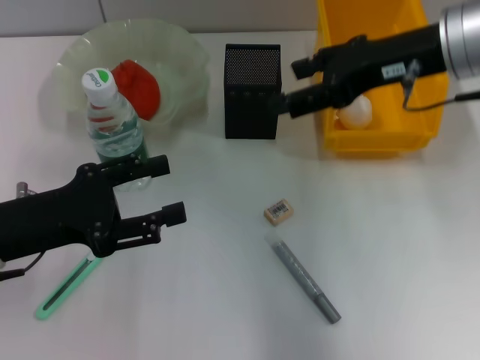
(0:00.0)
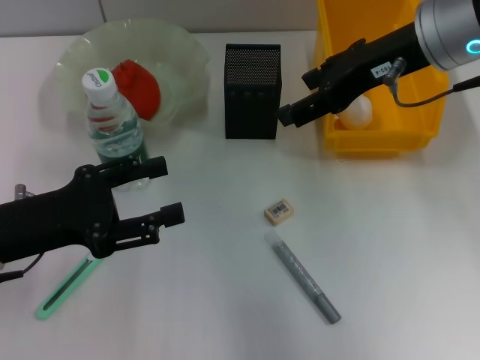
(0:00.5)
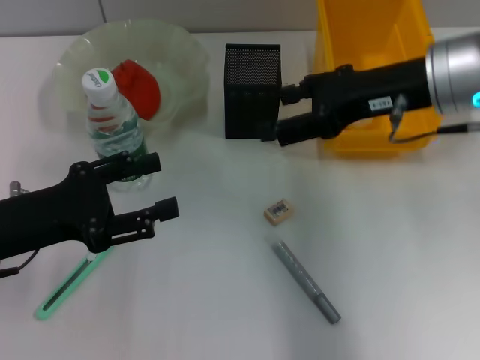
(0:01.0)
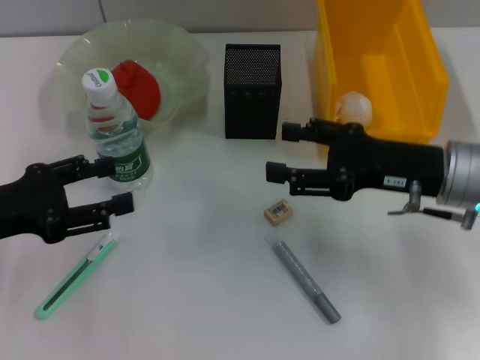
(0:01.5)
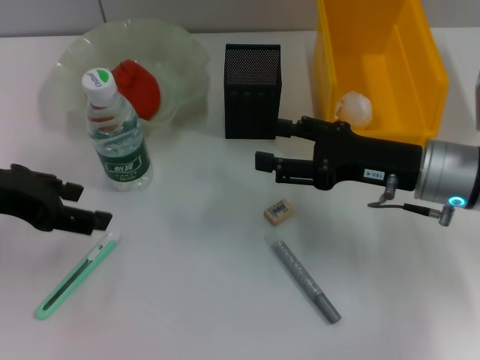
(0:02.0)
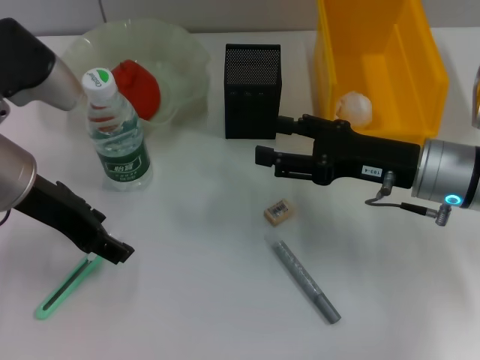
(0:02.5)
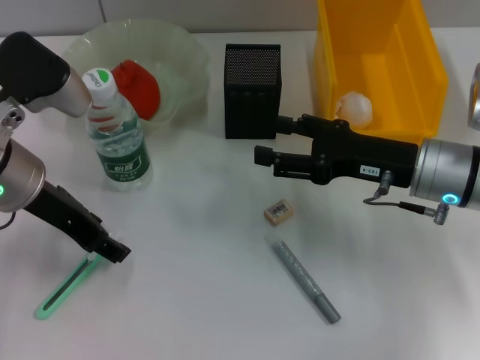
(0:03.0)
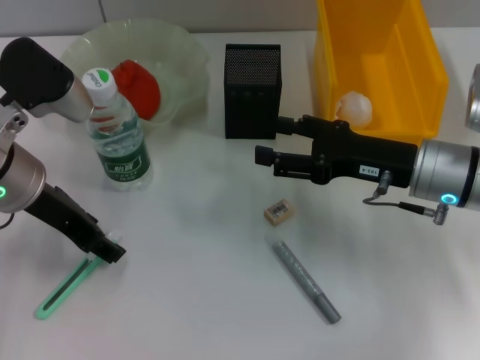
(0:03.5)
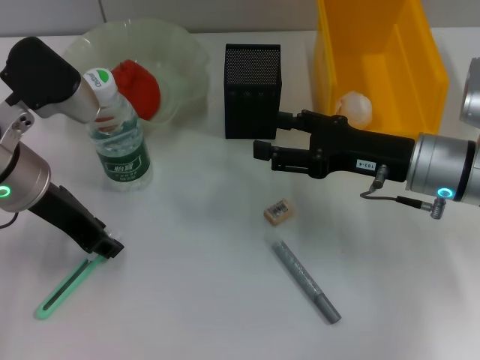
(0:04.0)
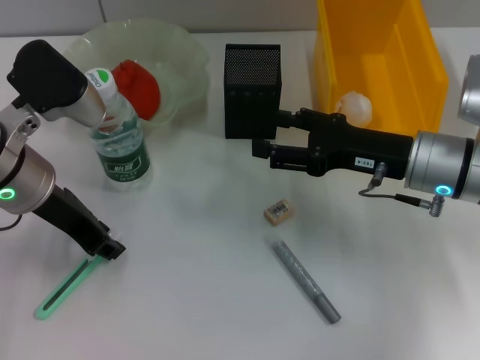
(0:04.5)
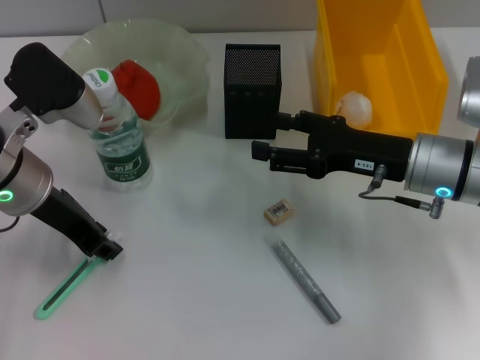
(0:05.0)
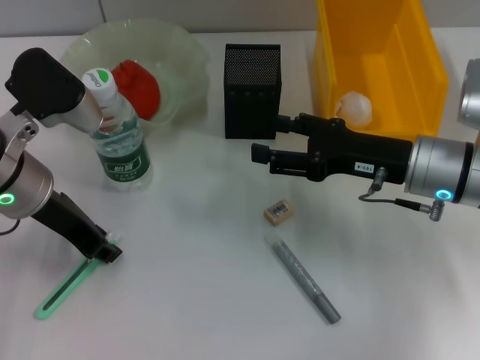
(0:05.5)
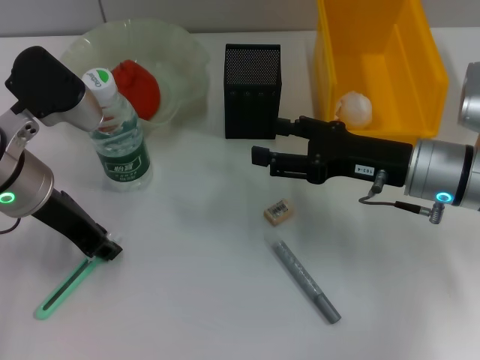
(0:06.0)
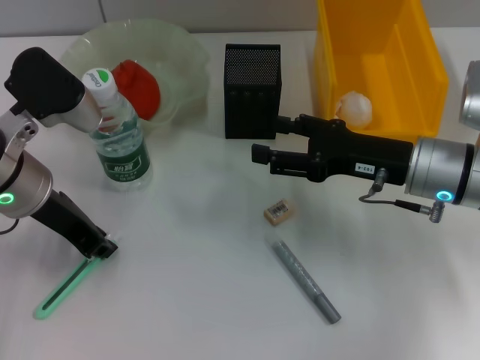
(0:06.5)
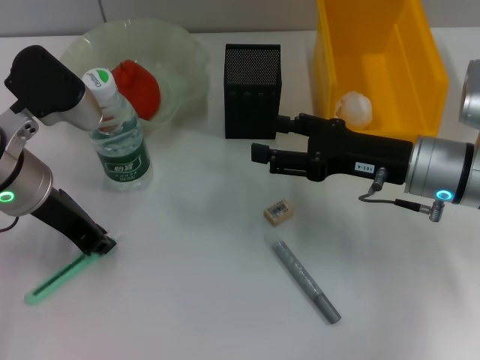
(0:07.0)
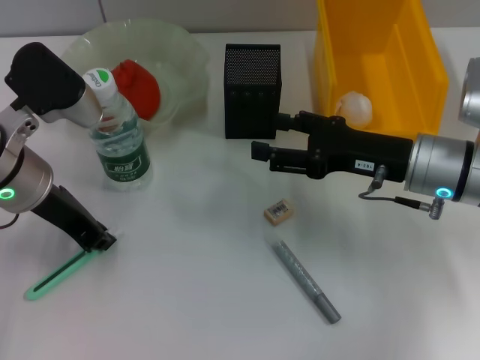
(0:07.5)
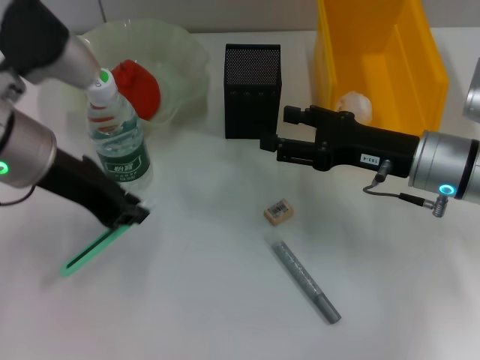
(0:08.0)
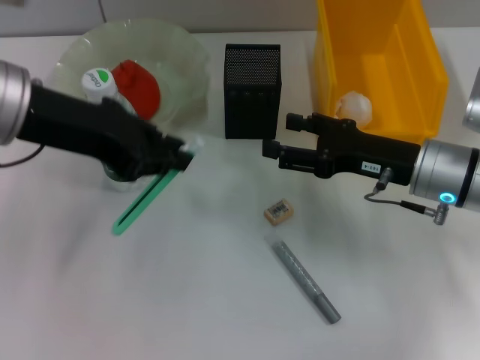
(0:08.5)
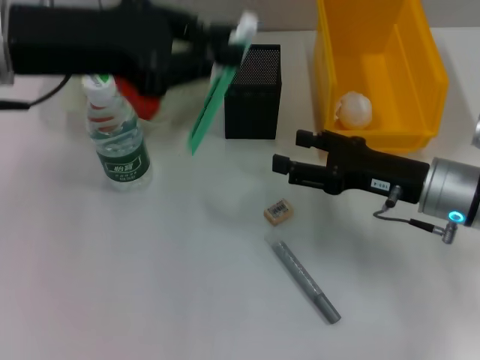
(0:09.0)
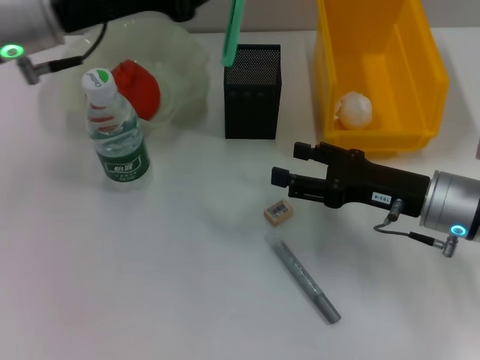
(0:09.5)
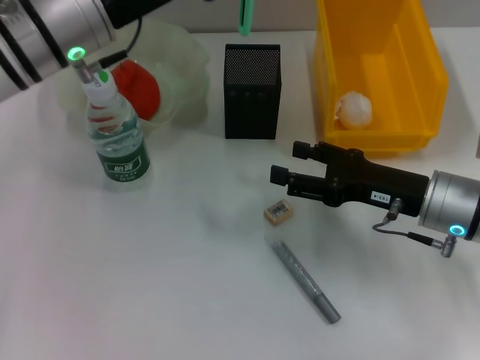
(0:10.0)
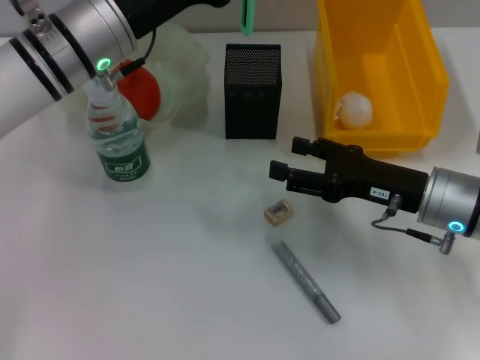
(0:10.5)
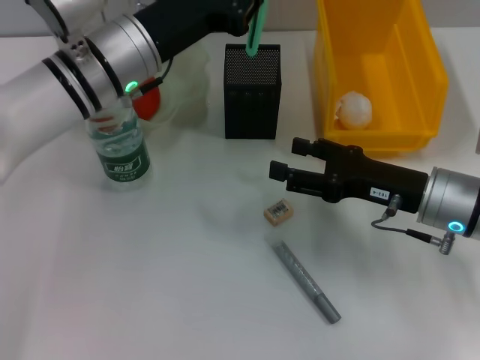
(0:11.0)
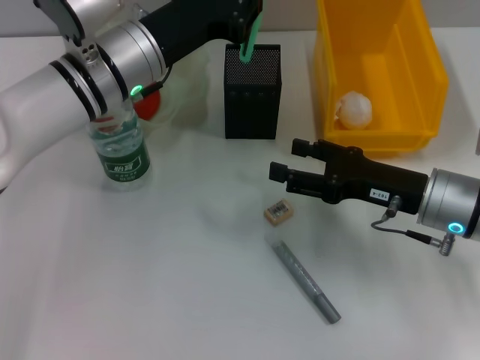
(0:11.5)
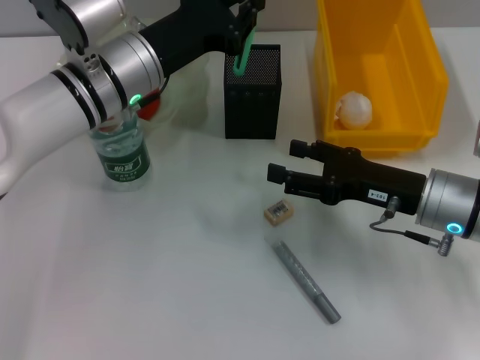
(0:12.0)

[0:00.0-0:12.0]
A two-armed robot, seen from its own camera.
Step, 0:00.0 to 0:07.0: Grab the blue utility knife with the left hand.
0:00.0 to 0:02.0: The left gripper goes roughly 10 cm upward. The right gripper shifts roughly 15 cm downward.
0:02.0 to 0:04.0: The left gripper goes some 5 cm to the right.
0:04.0 to 0:06.0: The left gripper closes up.
0:06.0 to 0:08.0: The grippers move only a little.
0:08.0 to 0:10.0: The left gripper is displaced forward by roughly 5 cm.
0:10.0 to 0:12.0: The left gripper goes about 5 cm downward.

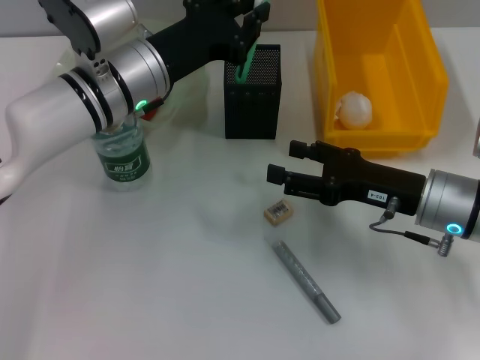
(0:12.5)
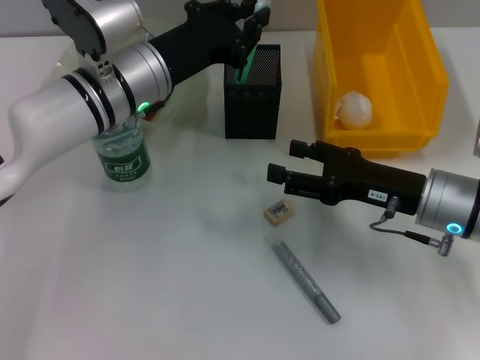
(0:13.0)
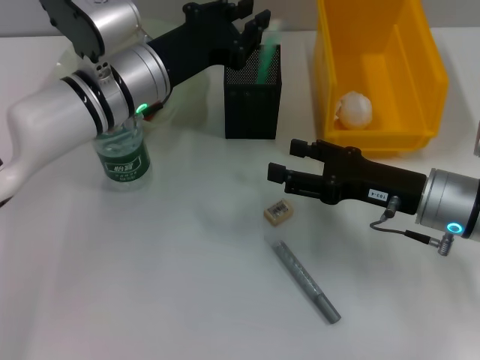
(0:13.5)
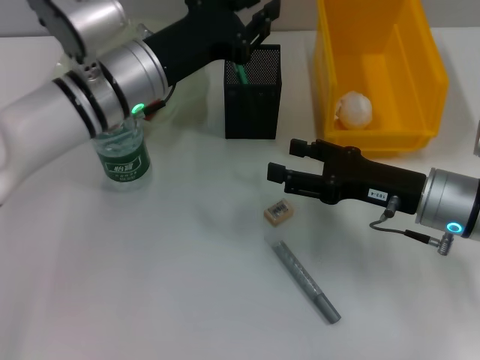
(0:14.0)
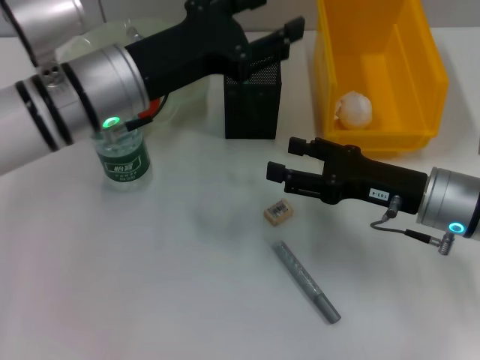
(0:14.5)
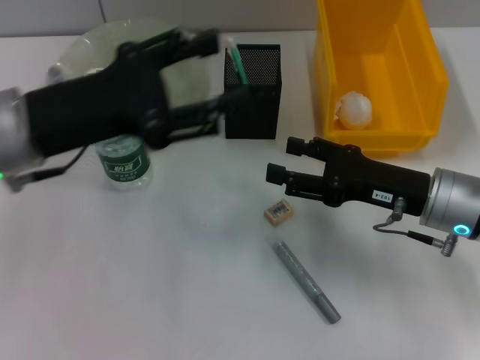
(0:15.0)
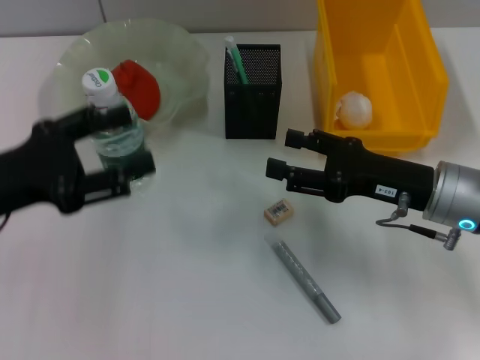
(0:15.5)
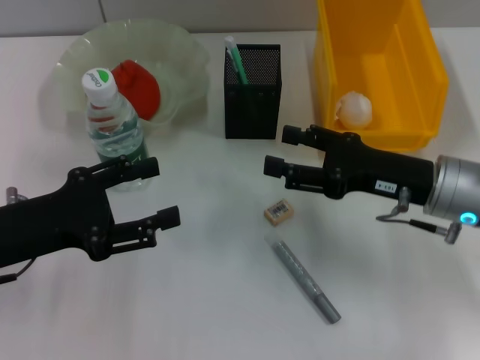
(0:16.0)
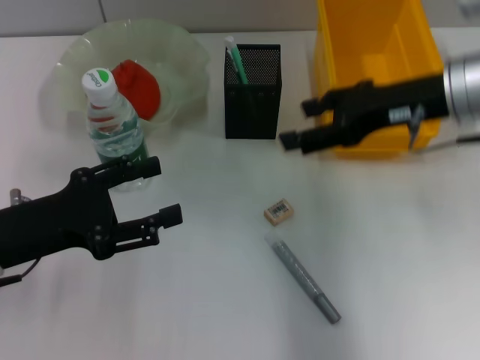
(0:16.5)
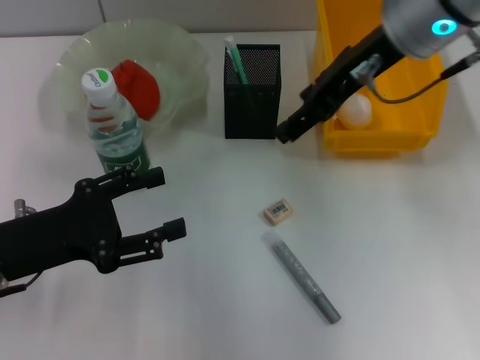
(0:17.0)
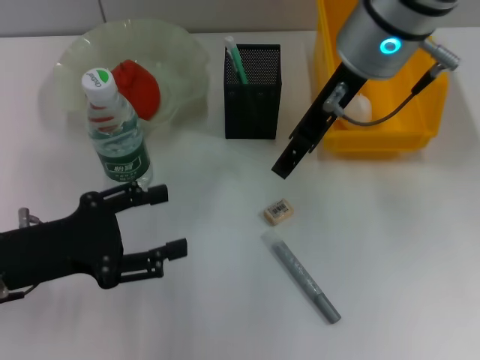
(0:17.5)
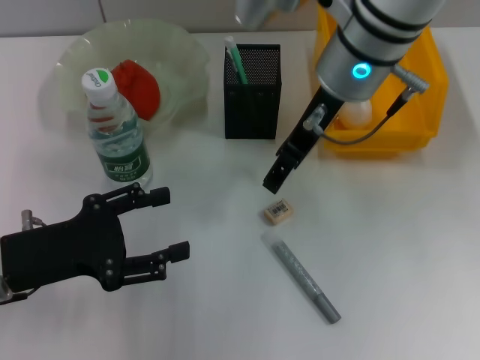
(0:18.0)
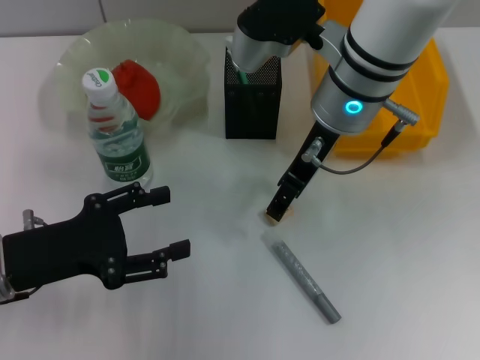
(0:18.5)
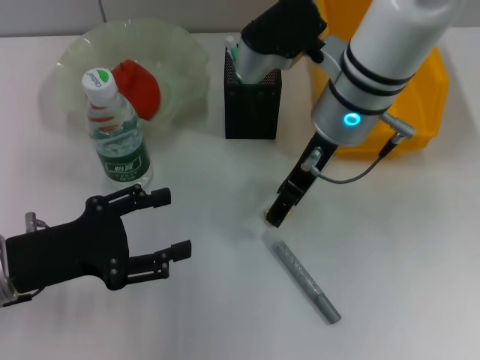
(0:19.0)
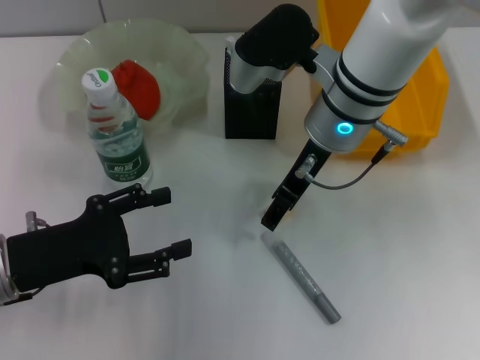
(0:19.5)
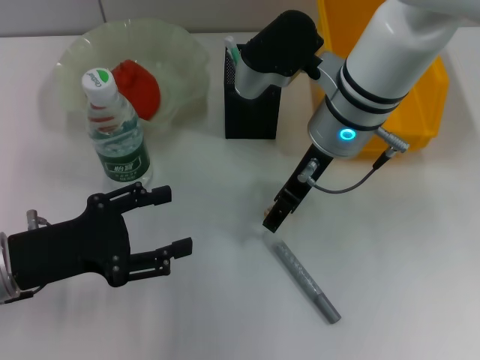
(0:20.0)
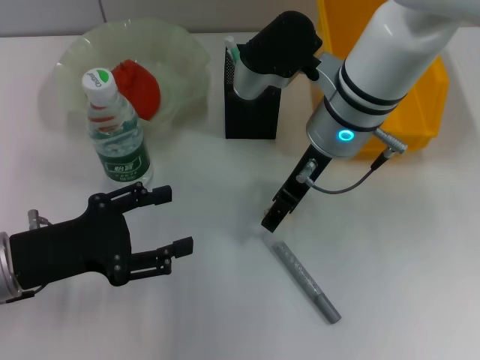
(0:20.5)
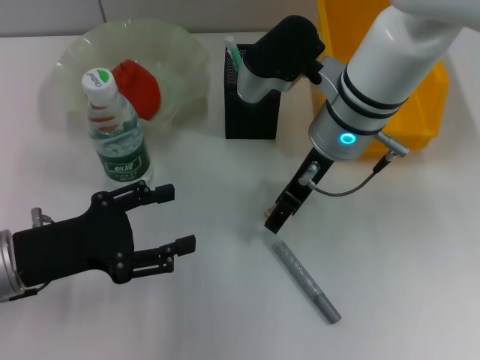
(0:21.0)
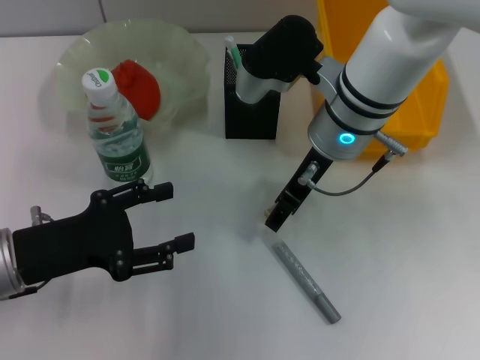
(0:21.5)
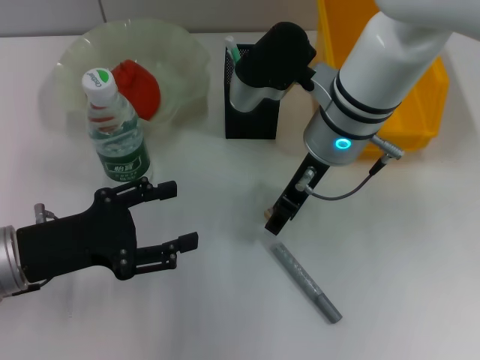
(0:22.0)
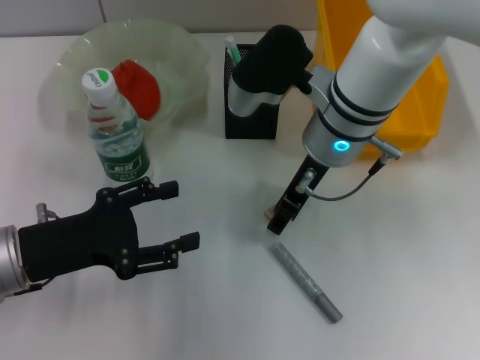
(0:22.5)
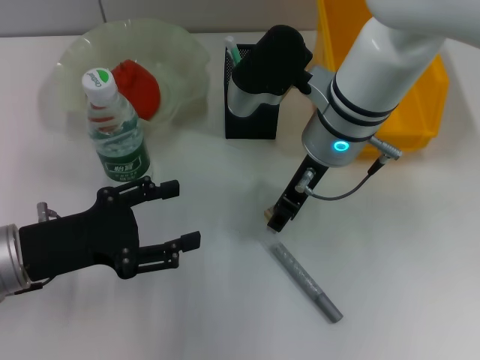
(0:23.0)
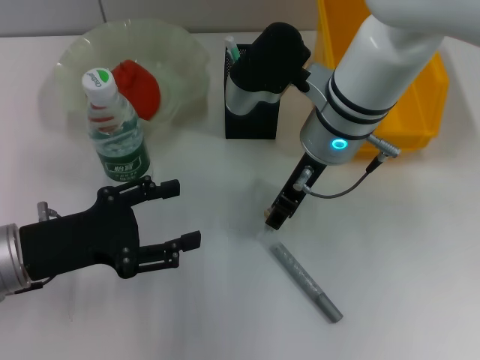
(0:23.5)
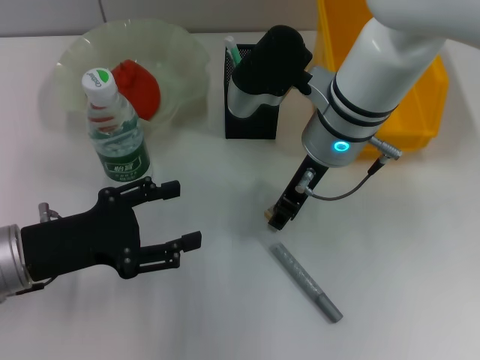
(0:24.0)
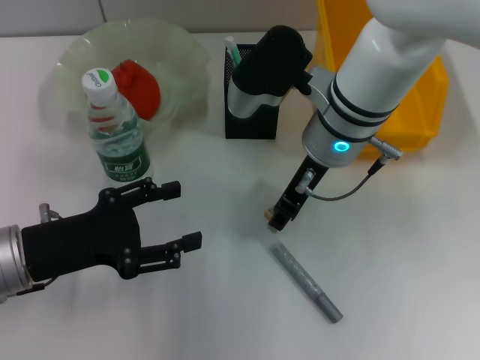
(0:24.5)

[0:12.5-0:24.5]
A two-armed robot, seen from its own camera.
0:12.5 to 0:14.5: The left gripper shifts roughly 5 cm backward, and opens.
0:14.5 to 0:16.5: The left gripper is displaced to the left, backward and downward by about 15 cm. Meanwhile the right gripper heads upward, covering approximately 15 cm.
0:16.5 to 0:18.5: The right gripper moves to the left, about 10 cm.
0:18.5 to 0:20.5: The grippers stay close to where they were, moving slightly.
0:20.5 to 0:24.5: Neither gripper changes place.

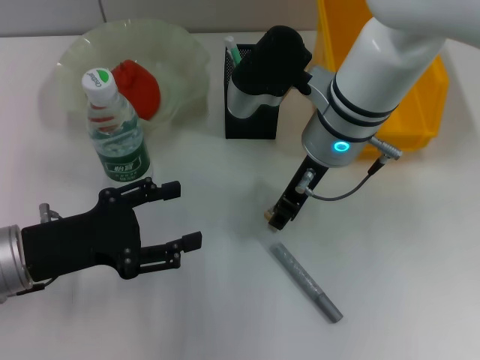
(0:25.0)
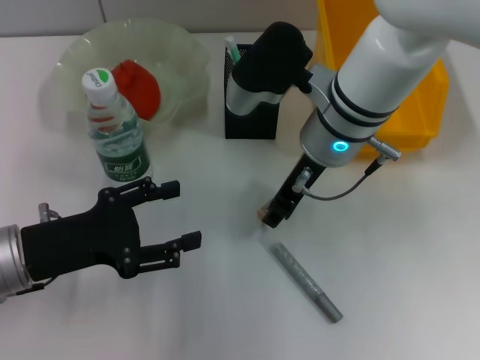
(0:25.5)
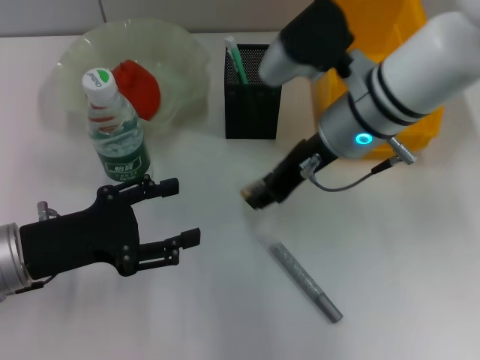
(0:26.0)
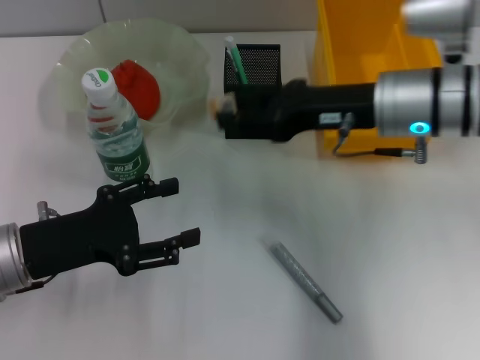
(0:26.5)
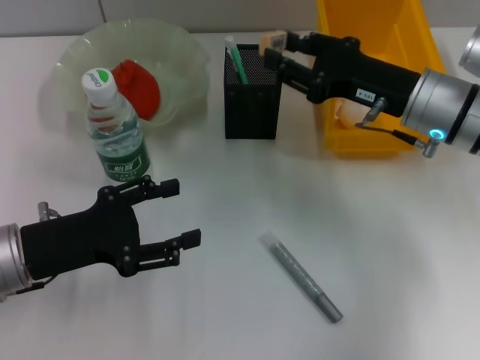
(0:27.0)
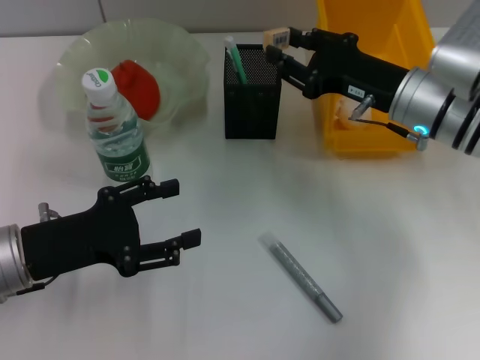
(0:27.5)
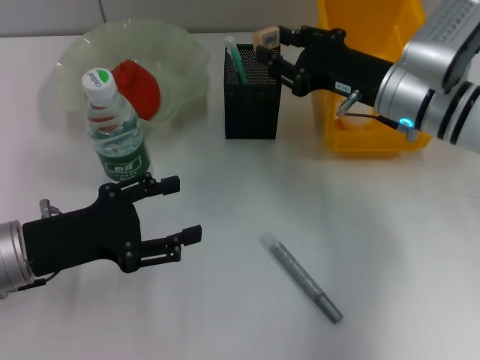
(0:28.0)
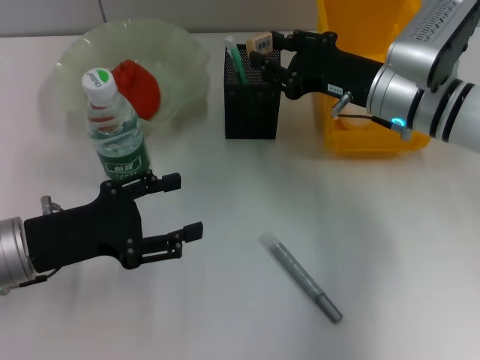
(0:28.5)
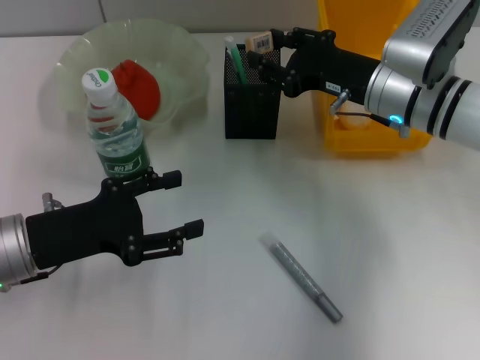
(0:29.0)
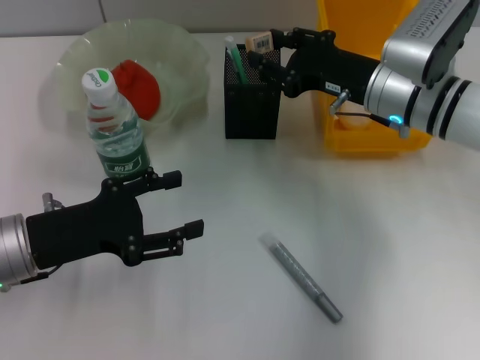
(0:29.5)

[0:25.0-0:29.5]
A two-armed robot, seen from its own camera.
0:25.0 to 0:27.0: The right gripper heads to the right, covering roughly 10 cm.
0:27.0 to 0:29.5: There are only small adjustments of the grippers.
